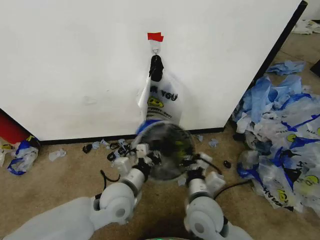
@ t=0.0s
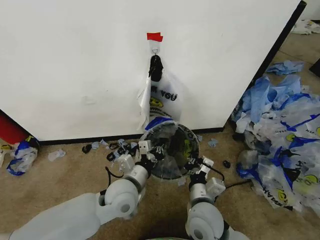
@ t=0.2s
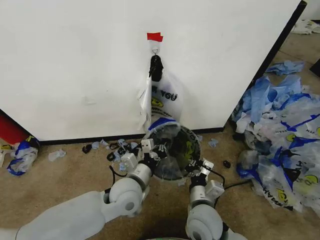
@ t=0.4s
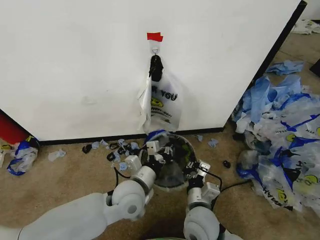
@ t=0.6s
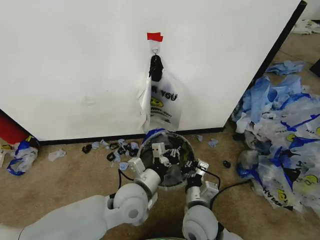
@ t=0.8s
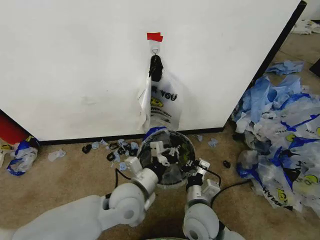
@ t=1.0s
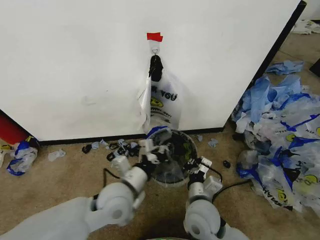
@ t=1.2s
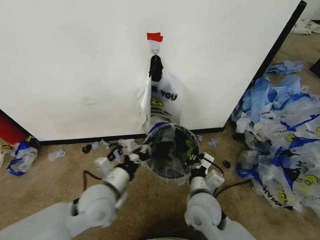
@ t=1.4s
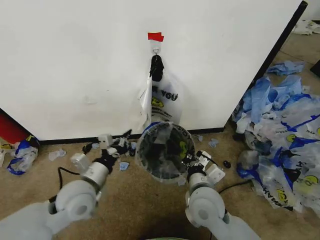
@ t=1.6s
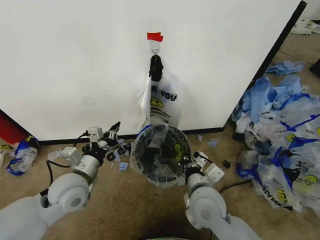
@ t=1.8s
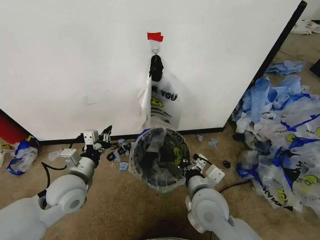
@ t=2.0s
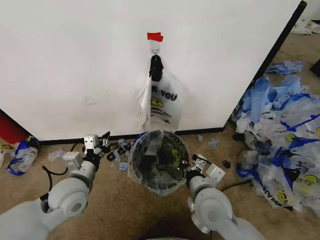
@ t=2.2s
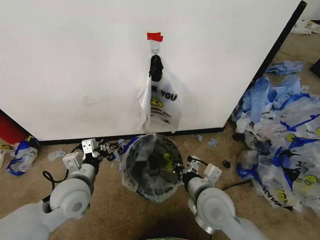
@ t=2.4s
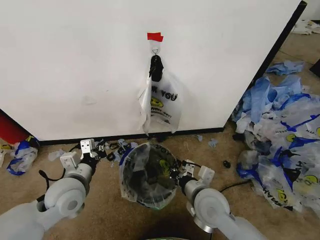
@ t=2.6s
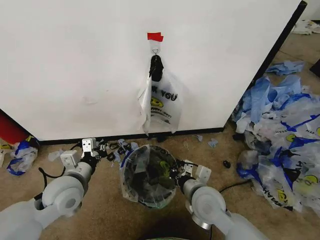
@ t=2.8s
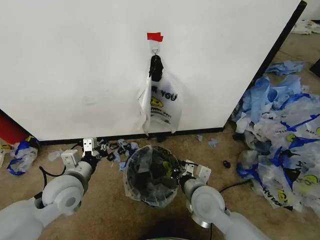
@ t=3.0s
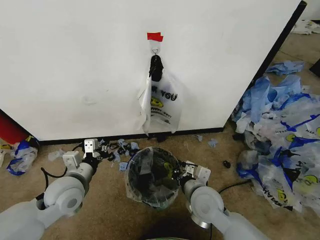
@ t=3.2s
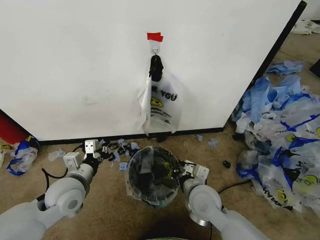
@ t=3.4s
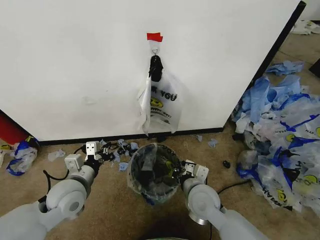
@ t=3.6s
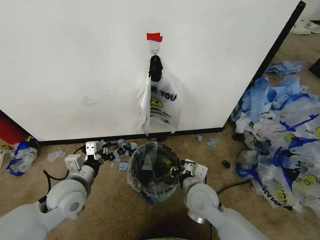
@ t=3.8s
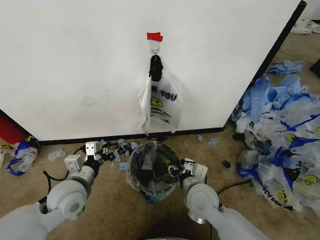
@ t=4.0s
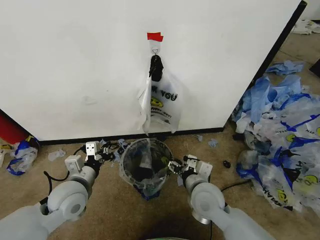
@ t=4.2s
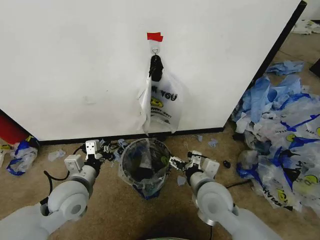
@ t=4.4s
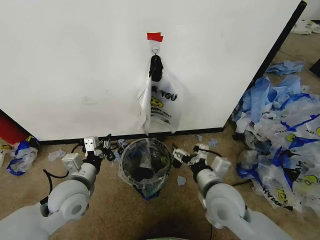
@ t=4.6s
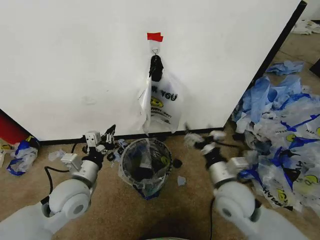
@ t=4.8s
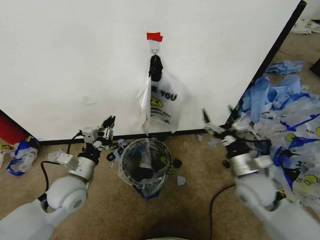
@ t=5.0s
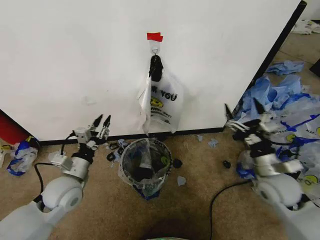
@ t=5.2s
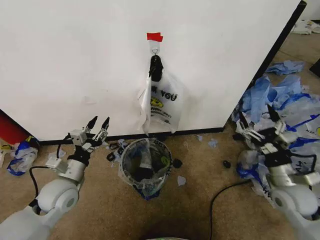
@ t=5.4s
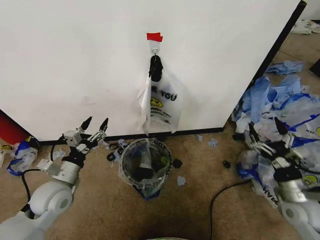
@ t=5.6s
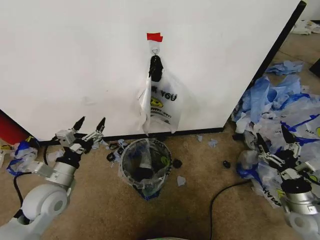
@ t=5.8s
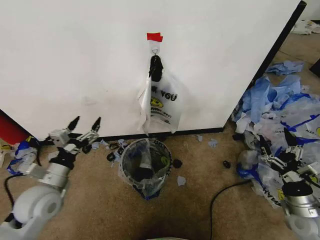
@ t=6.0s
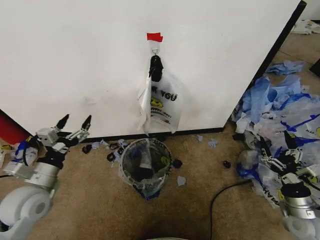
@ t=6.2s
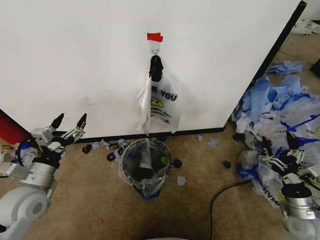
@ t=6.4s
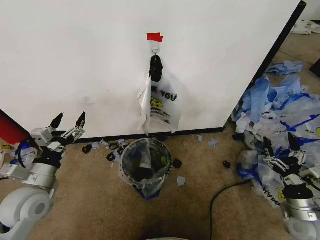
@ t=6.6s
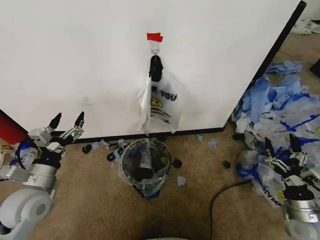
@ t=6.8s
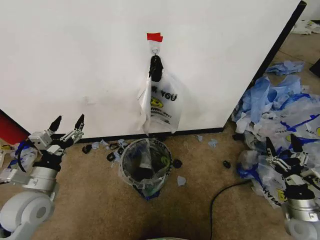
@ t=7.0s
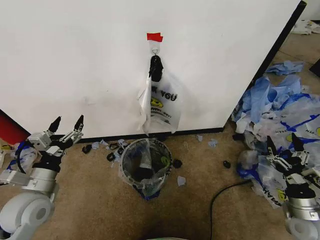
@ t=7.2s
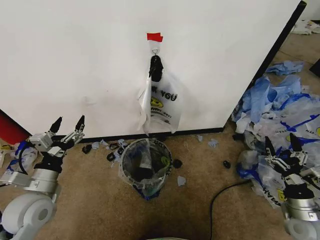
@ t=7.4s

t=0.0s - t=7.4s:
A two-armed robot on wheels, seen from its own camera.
Task of the whole recording: Pick up the garbage bag from the wall and place it over the trash bin.
t=0.0s - t=1.4s: The left gripper shifts approximately 5 cm to the left.
t=1.4s - t=3.0s: The left gripper shifts approximately 10 cm to the left.
t=3.0s - t=4.4s: The right gripper opens up.
t=4.4s - t=6.0s: The right gripper moves to the right, approximately 30 cm, while the left gripper heads to the left, covering roughly 5 cm, and opens.
t=6.0s - t=7.4s: There are only small adjustments of the grippers.
